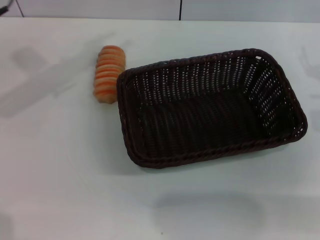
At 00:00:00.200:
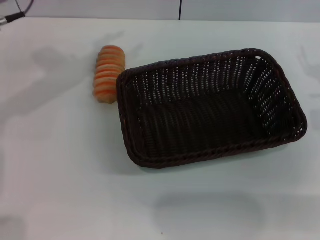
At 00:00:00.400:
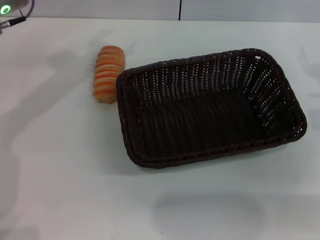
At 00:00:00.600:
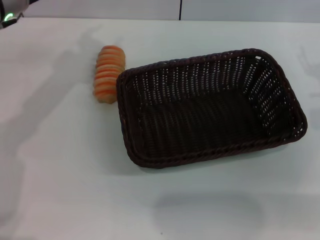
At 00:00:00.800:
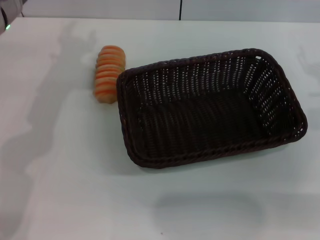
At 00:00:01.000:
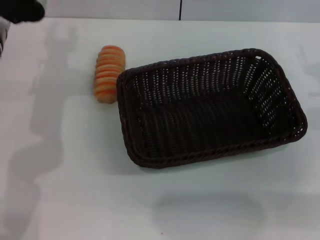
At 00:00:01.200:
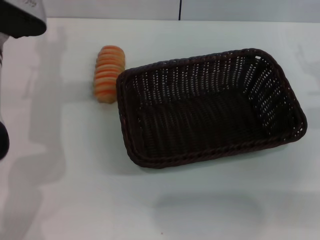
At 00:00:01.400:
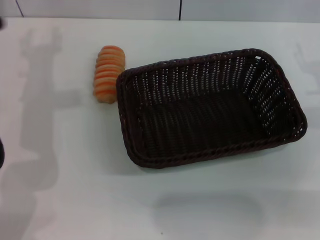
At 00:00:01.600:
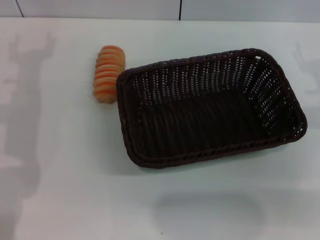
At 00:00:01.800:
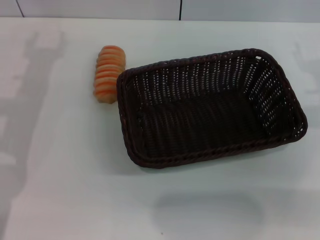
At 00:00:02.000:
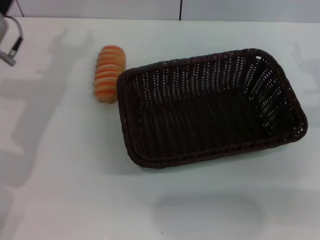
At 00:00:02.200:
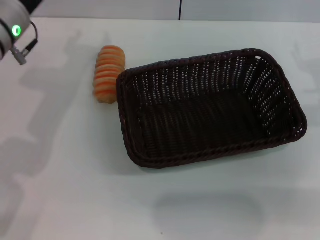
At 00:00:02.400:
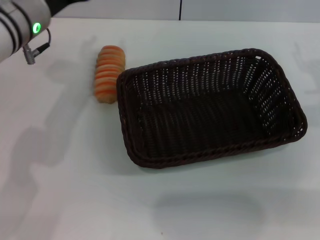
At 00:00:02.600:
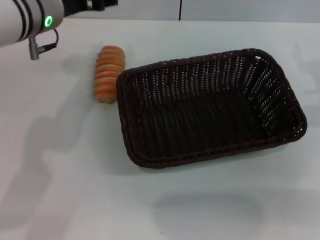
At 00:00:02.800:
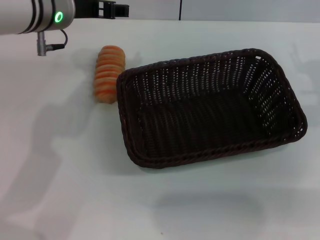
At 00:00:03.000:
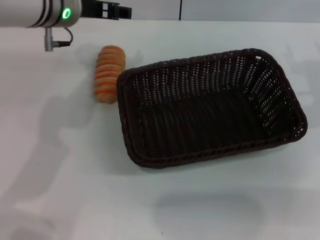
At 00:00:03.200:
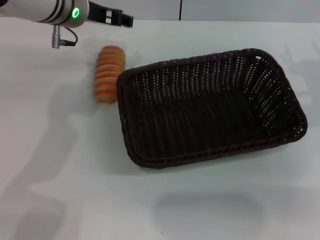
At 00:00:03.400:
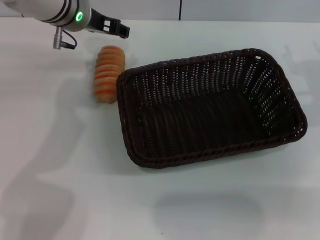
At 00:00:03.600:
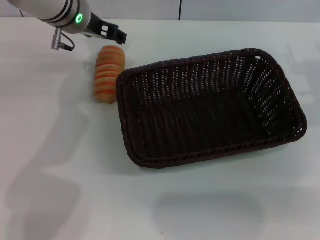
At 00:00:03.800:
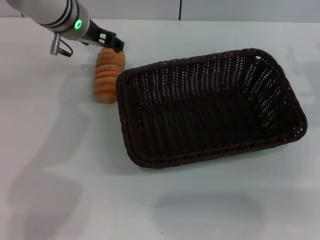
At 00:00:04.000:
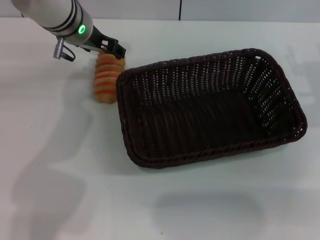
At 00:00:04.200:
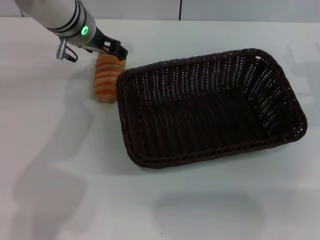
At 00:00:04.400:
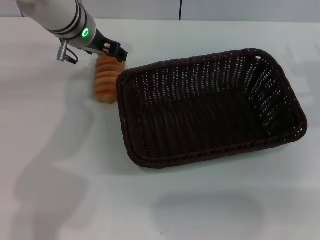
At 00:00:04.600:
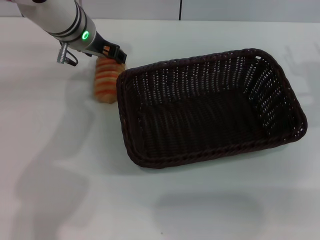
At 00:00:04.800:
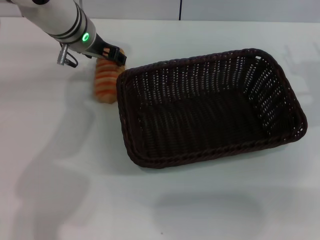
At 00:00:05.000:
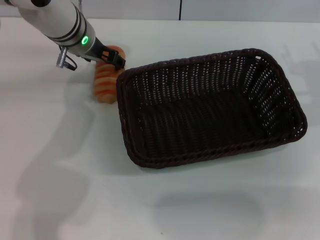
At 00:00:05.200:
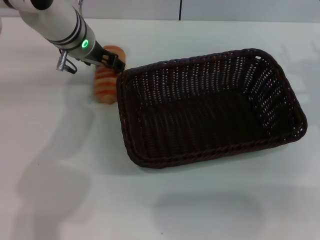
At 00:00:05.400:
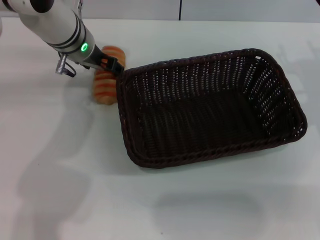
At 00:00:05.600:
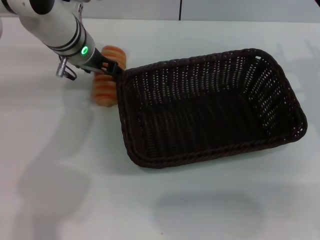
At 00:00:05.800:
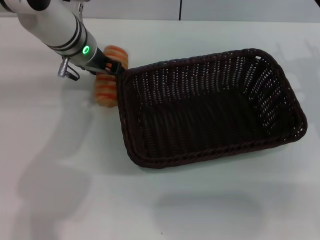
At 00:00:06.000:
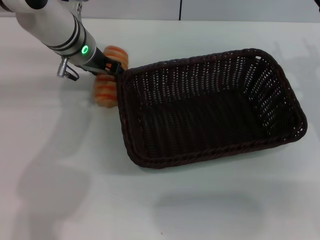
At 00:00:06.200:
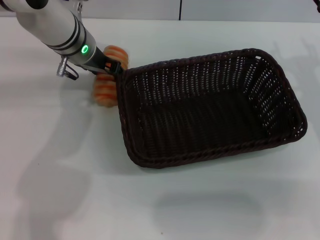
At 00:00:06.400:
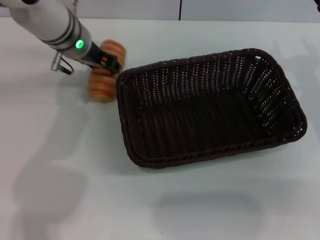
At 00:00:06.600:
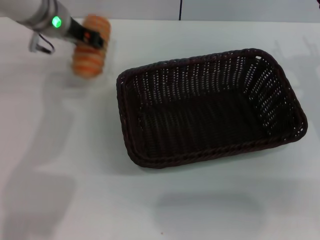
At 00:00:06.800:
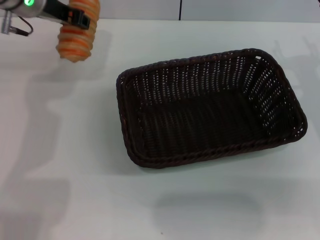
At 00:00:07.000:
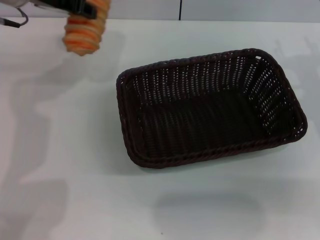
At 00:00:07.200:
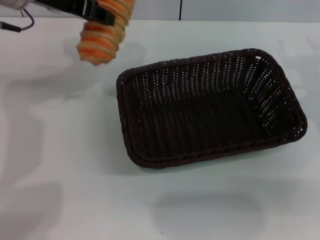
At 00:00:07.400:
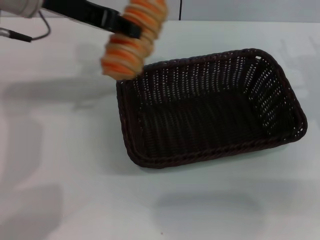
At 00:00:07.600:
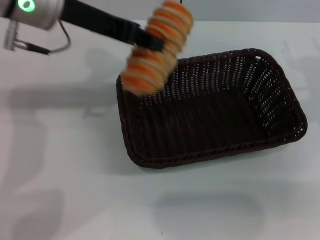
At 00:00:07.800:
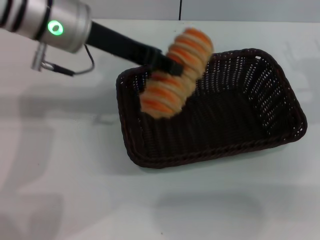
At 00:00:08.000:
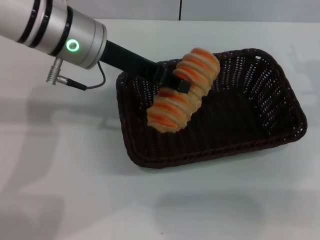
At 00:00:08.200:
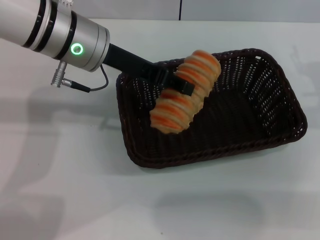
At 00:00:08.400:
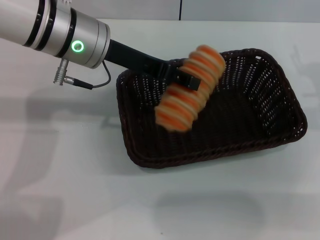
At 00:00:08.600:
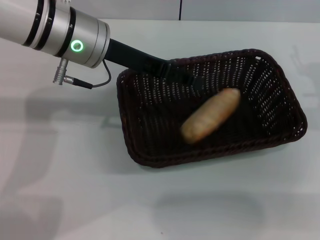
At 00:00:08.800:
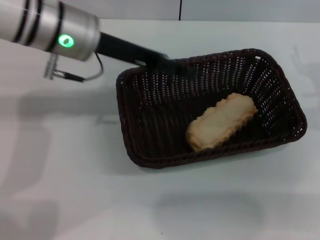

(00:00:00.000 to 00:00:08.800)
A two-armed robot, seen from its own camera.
Step, 00:00:00.000 - 00:00:06.800: Pick up the long bread with the left gripper.
Step, 00:00:07.000 - 00:00:08.600: Place the long bread into the dark basket with the left gripper.
00:00:00.000 - 00:00:01.400: The left gripper travels downward by about 5 cm.
00:00:01.400 - 00:00:03.000: The left gripper goes roughly 10 cm to the right, upward and forward.
00:00:03.000 - 00:00:04.400: The left gripper moves some 5 cm.
00:00:04.400 - 00:00:05.800: The grippers stay close to where they were, moving slightly.
00:00:05.800 - 00:00:07.400: The left gripper heads upward and backward, covering some 15 cm, and closes.
00:00:07.400 - 00:00:08.800: The left gripper is displaced downward by about 5 cm, and opens its fingers.
